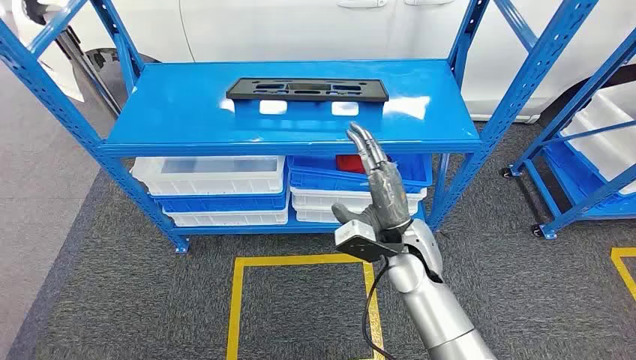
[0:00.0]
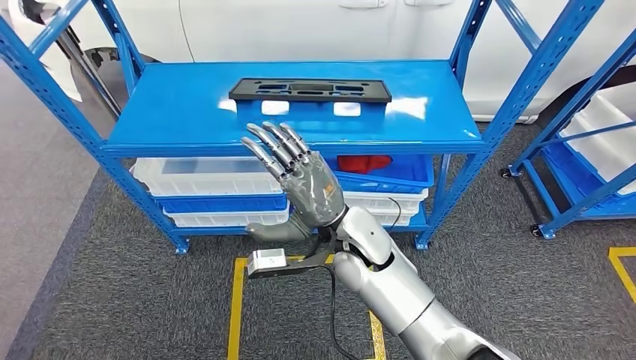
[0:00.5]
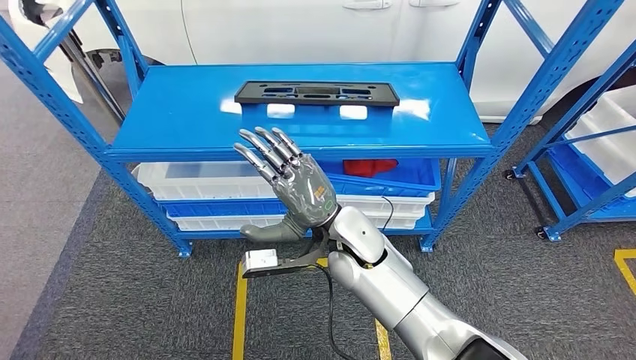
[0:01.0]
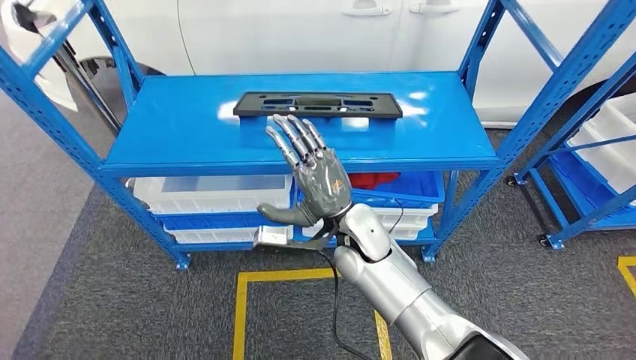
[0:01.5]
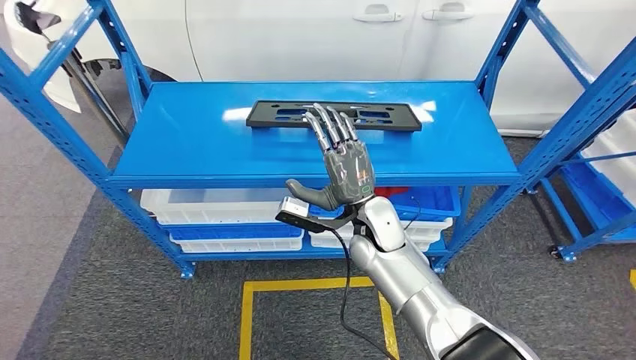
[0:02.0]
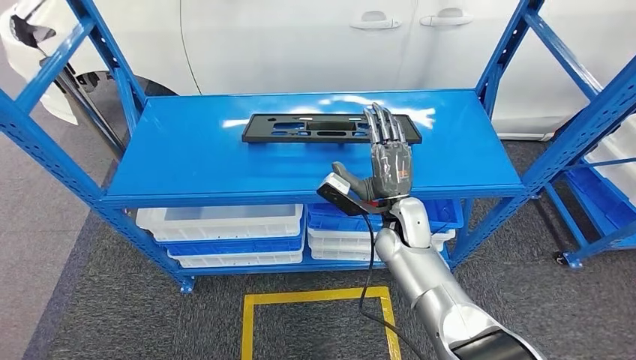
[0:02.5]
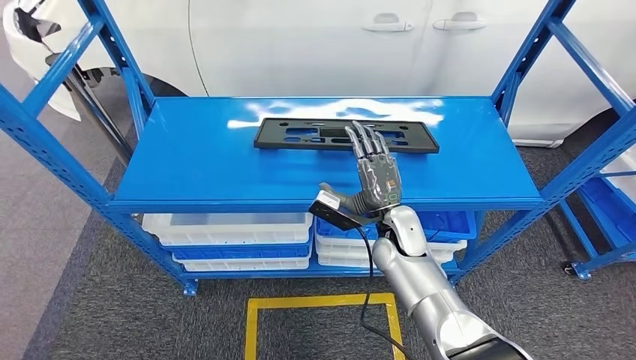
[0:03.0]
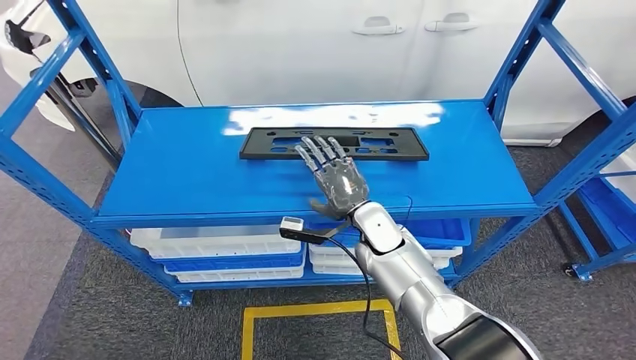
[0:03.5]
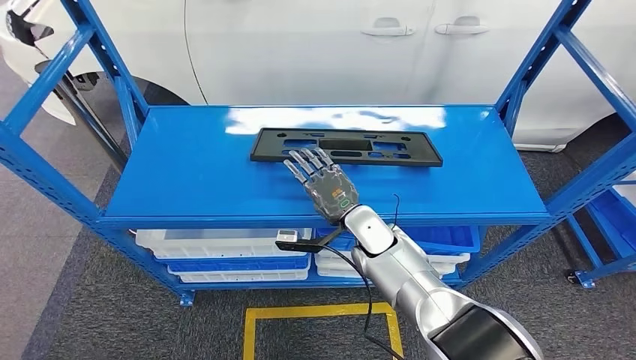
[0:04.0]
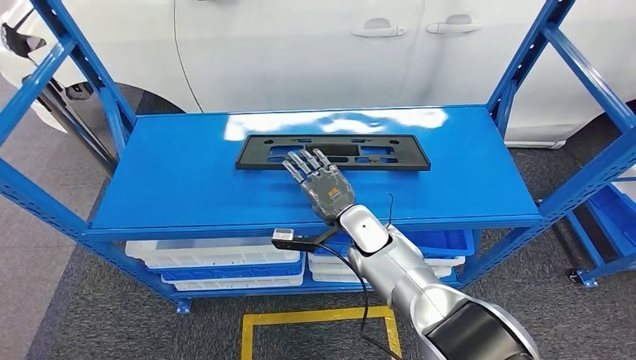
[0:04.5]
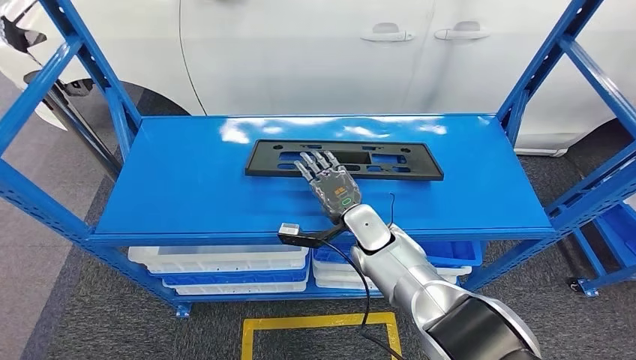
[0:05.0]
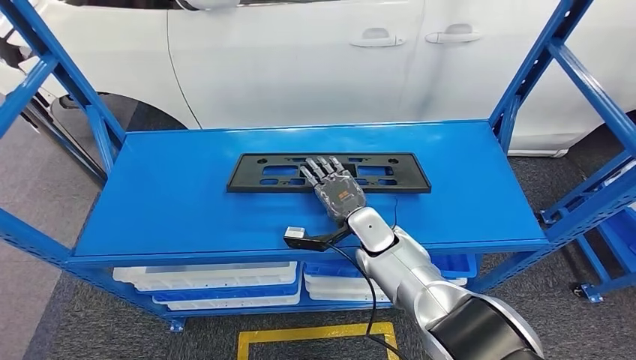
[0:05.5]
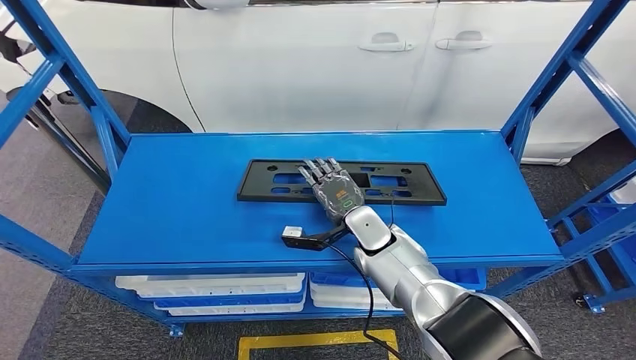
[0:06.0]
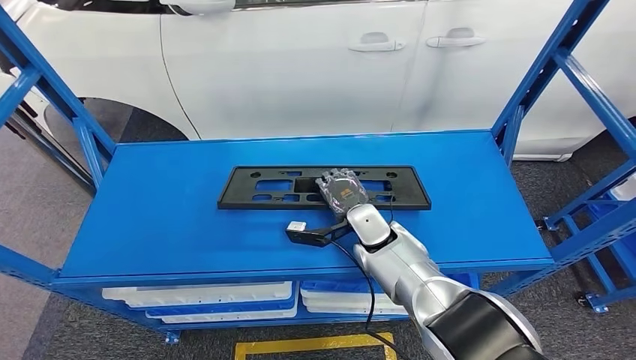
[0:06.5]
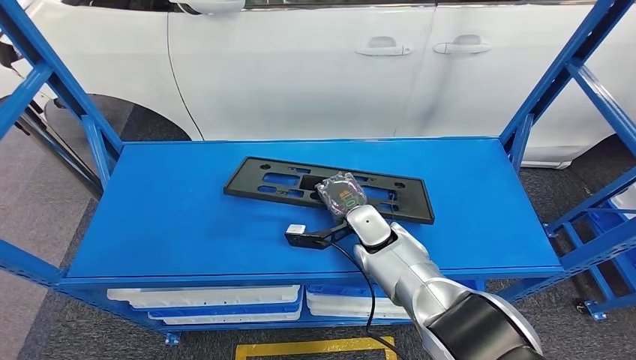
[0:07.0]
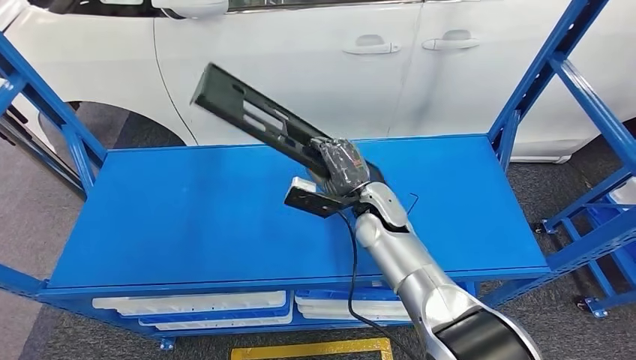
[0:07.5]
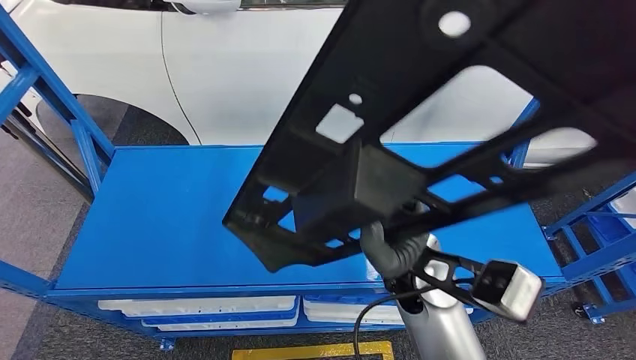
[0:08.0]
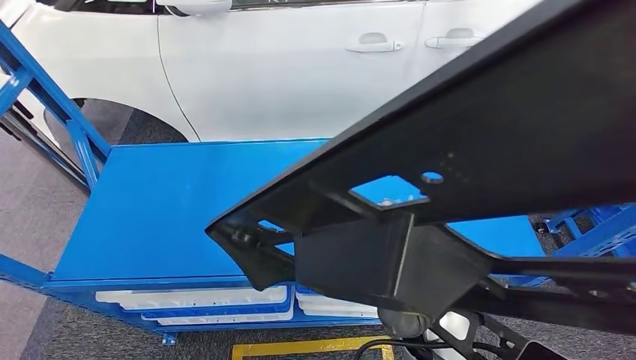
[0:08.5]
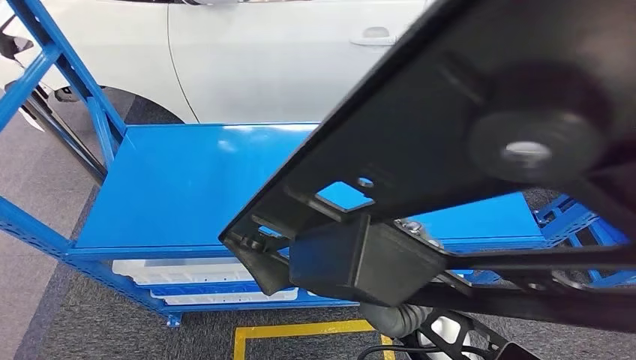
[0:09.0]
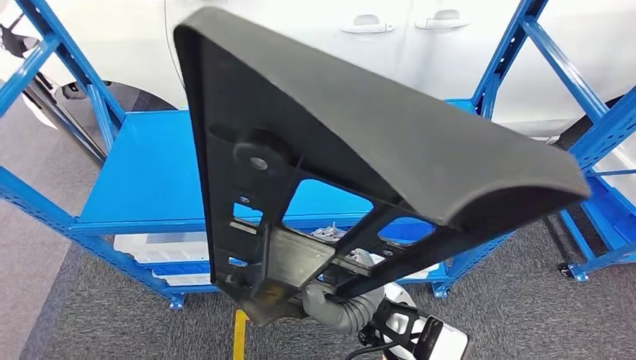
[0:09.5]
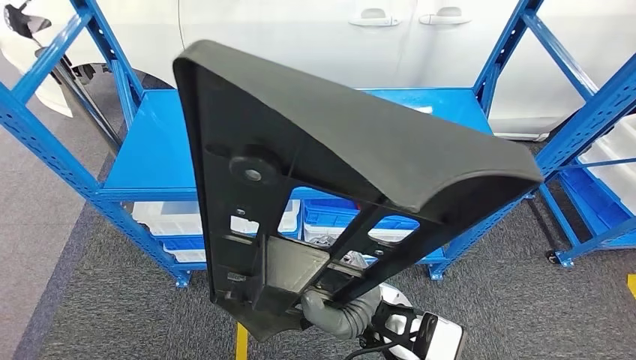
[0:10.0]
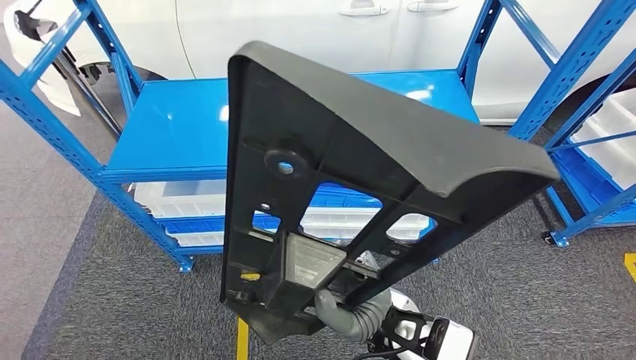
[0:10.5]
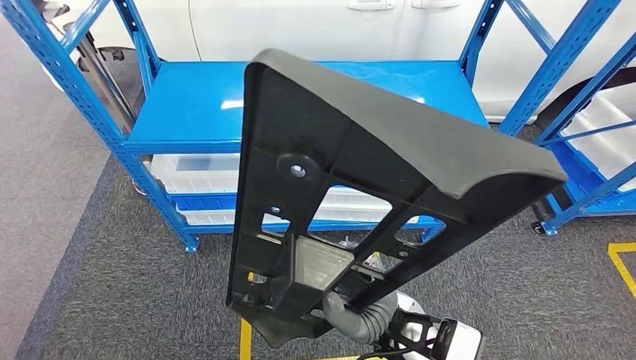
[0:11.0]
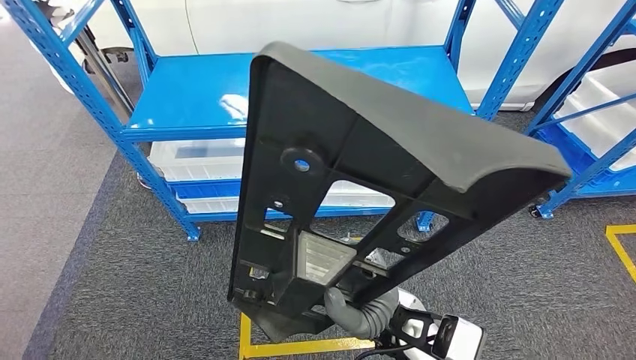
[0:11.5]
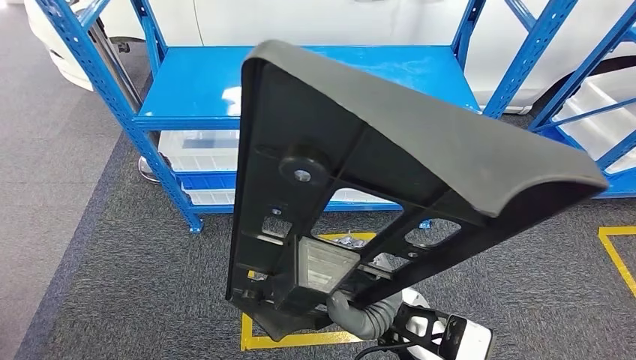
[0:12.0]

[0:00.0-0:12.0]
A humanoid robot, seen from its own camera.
Step, 0:00.0 to 0:09.0: Pick up the large material from the shelf.

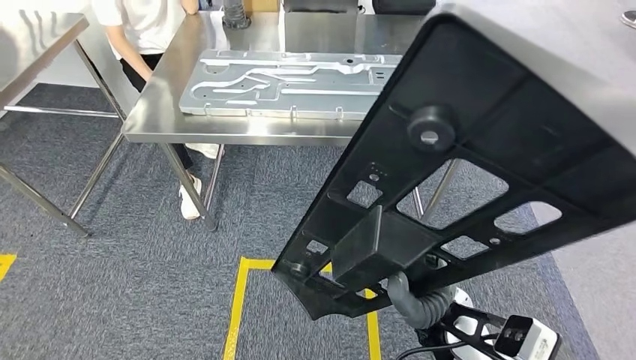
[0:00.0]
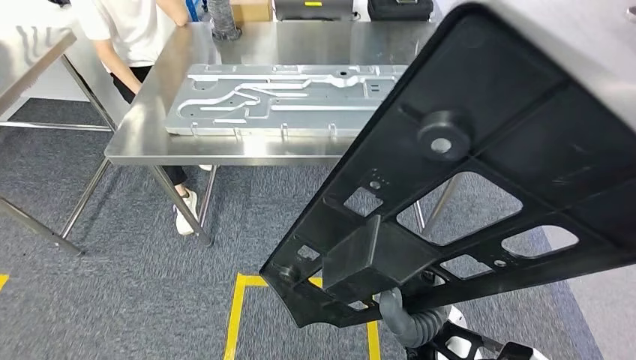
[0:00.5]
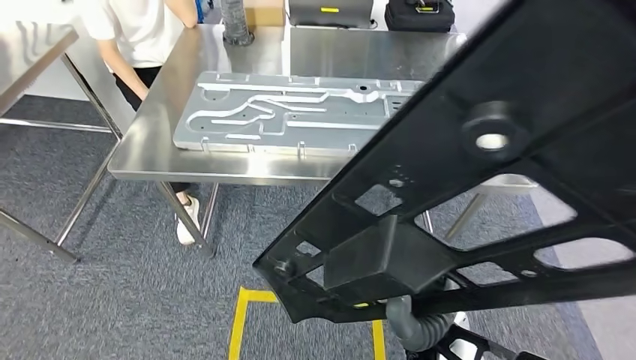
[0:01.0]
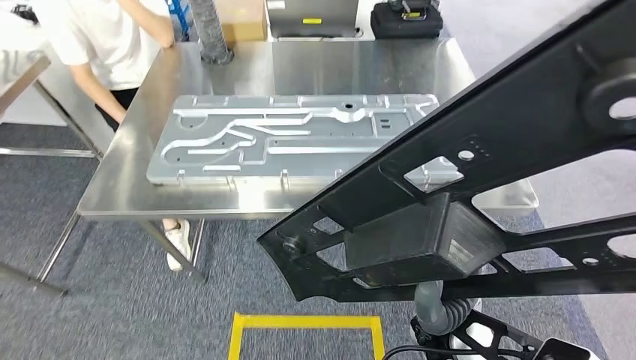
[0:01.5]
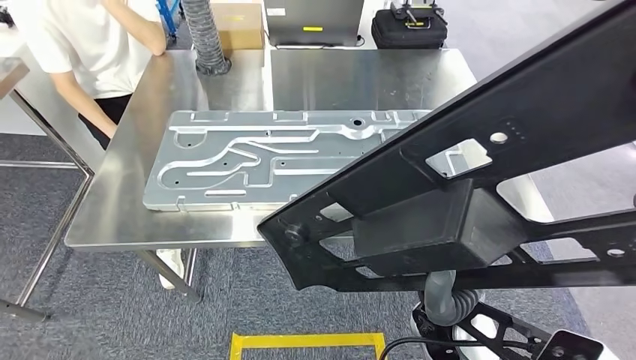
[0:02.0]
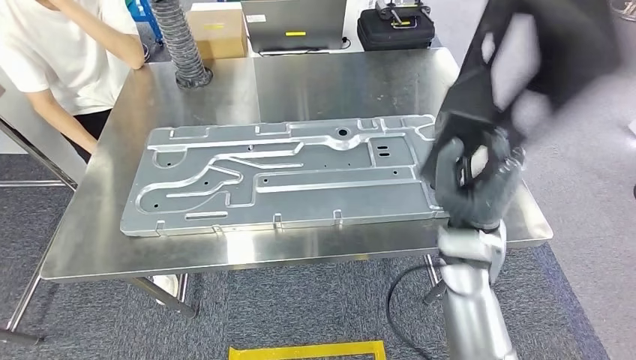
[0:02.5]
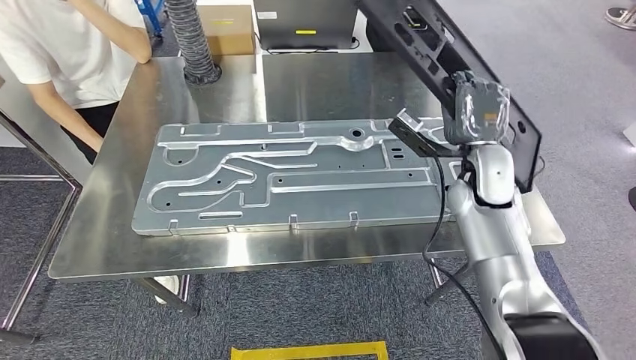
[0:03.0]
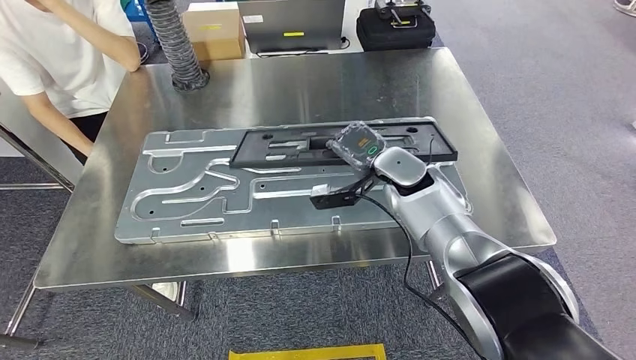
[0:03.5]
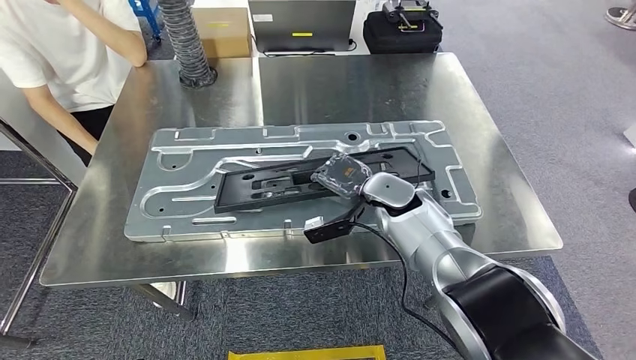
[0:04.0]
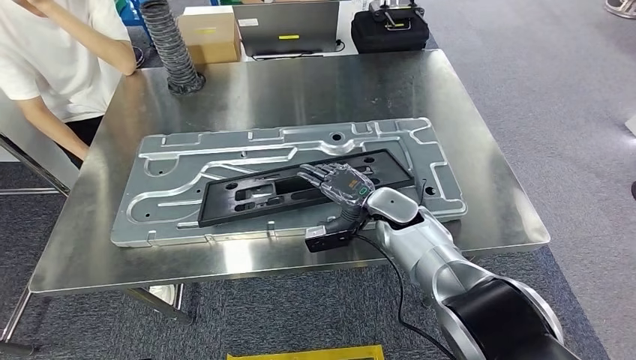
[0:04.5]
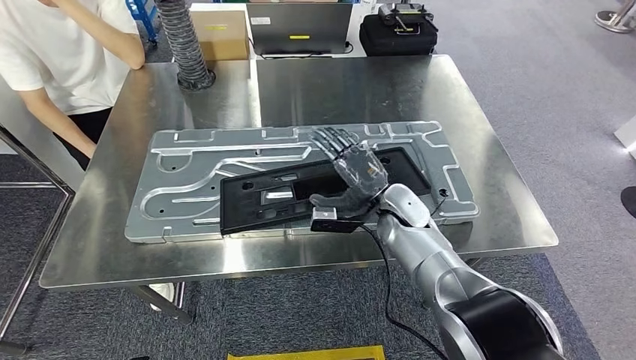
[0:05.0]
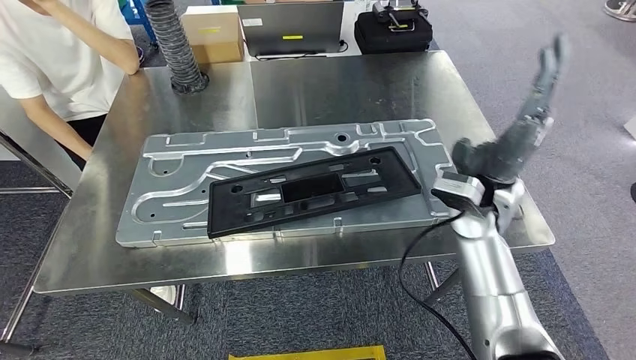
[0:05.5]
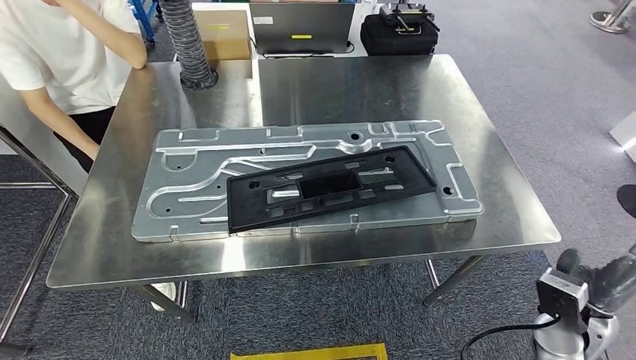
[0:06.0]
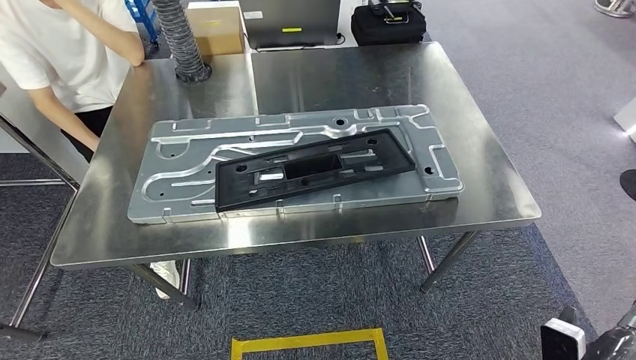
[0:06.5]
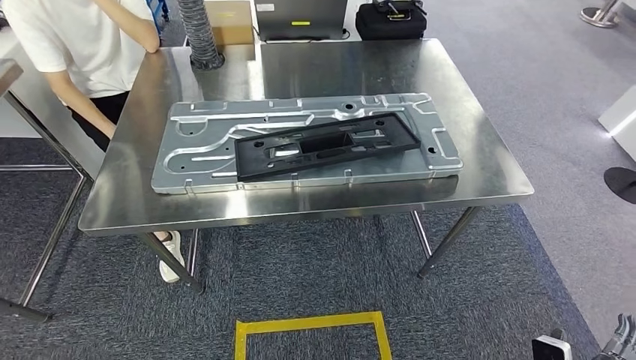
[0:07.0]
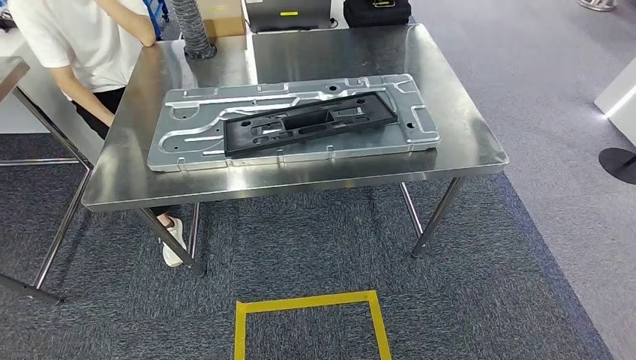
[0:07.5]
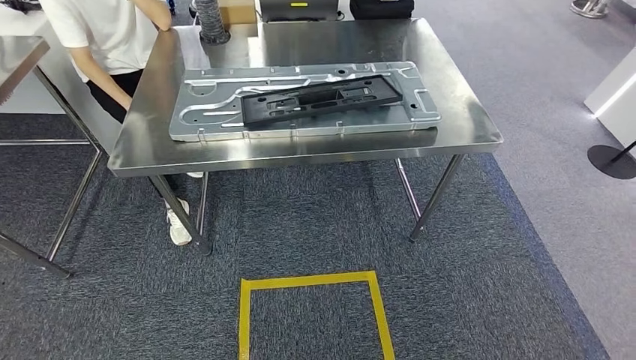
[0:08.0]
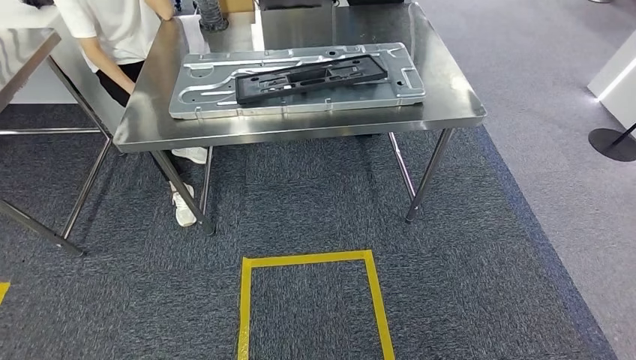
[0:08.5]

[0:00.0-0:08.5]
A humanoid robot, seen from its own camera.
Step, 0:00.0 to 0:03.5: Move the large material to the workbench.
Step, 0:04.0 to 0:06.0: Insert the large material into the corresponding slot on the workbench.
Step, 0:06.5 to 0:08.5: Move to the initial position of the shelf.
